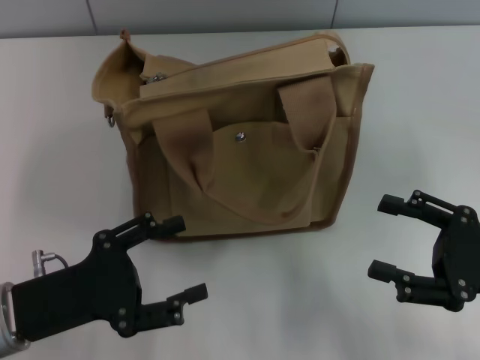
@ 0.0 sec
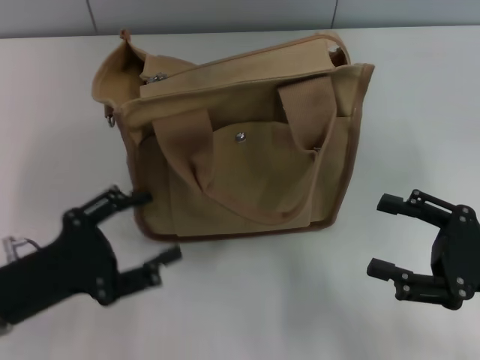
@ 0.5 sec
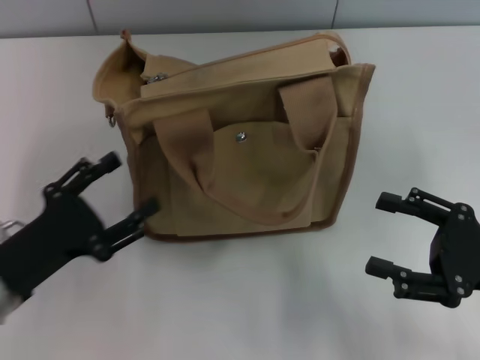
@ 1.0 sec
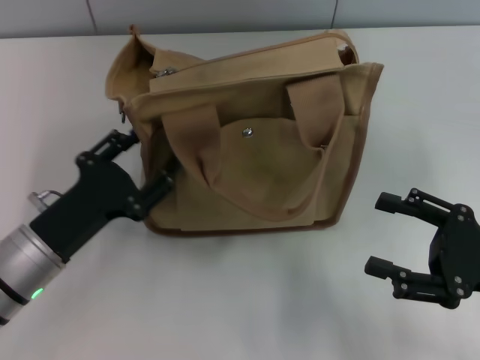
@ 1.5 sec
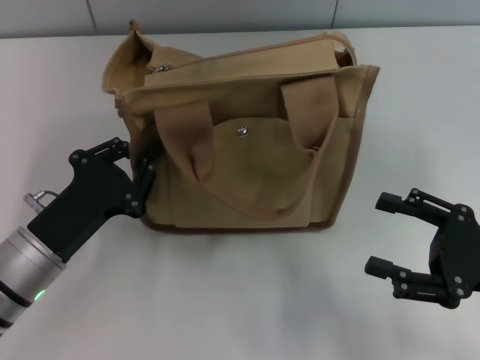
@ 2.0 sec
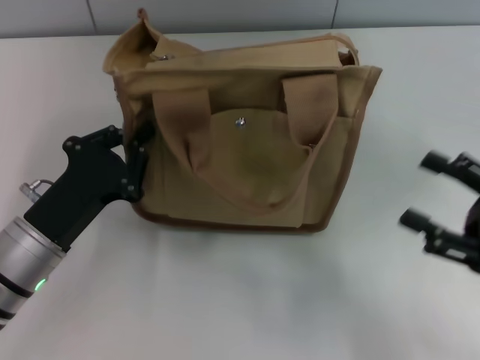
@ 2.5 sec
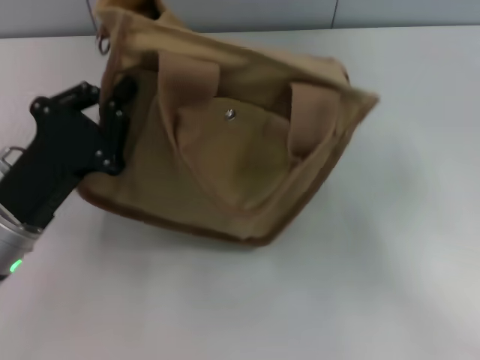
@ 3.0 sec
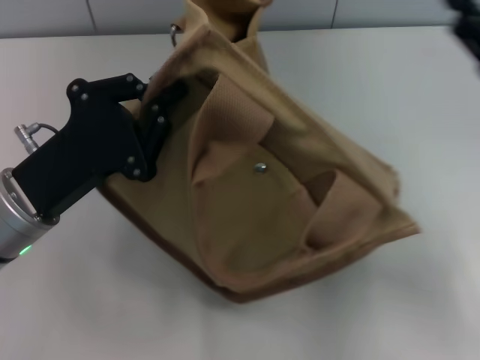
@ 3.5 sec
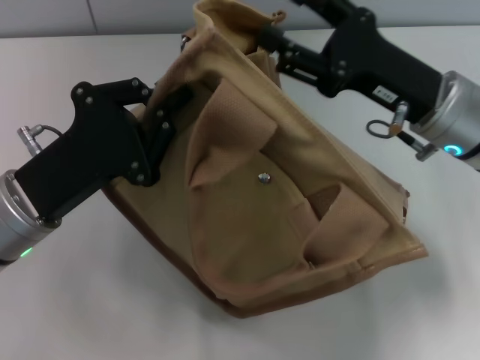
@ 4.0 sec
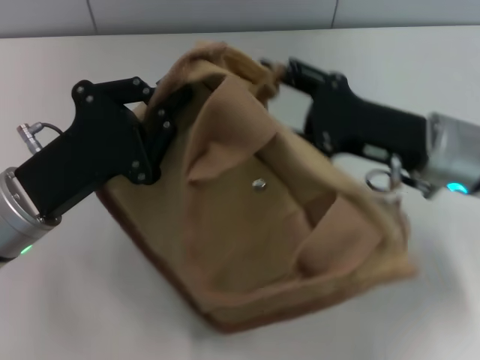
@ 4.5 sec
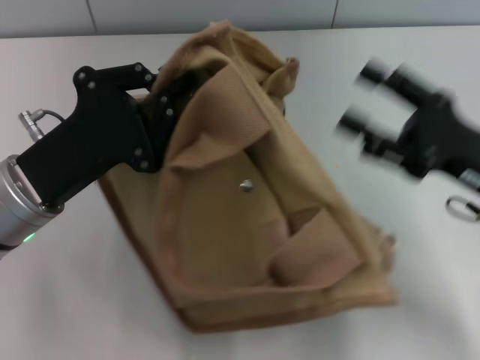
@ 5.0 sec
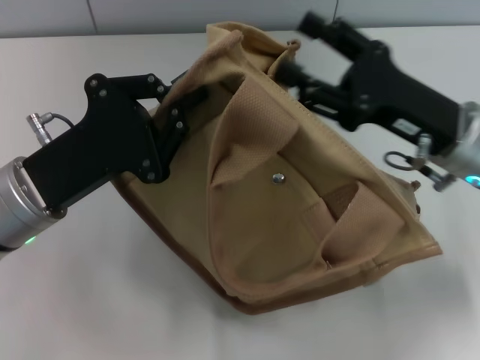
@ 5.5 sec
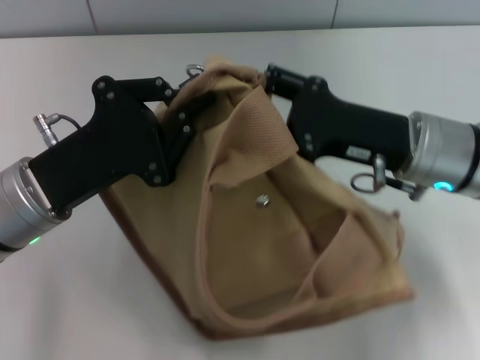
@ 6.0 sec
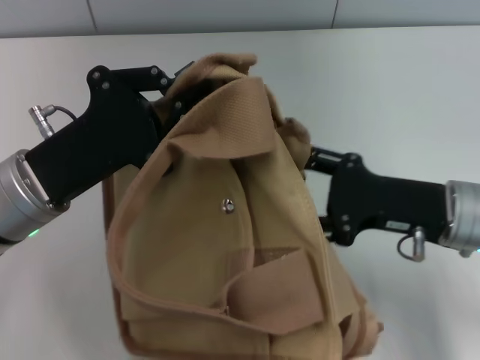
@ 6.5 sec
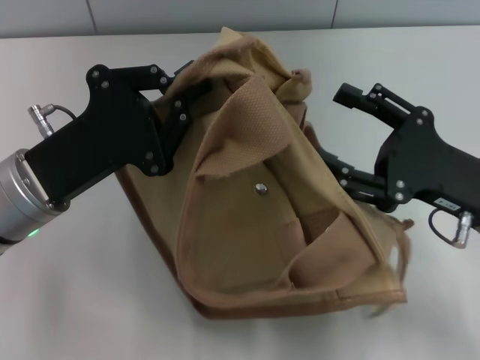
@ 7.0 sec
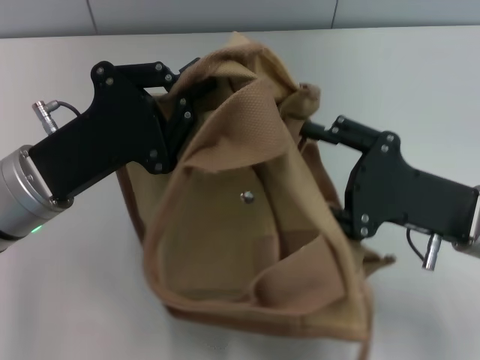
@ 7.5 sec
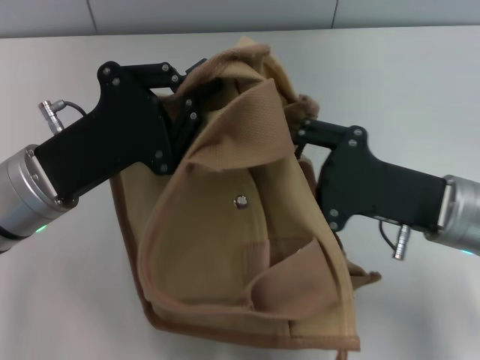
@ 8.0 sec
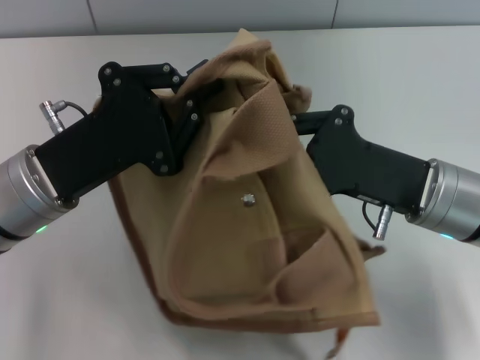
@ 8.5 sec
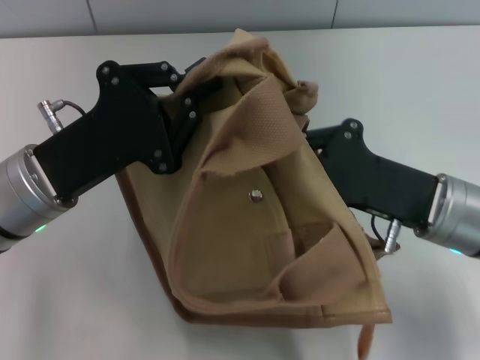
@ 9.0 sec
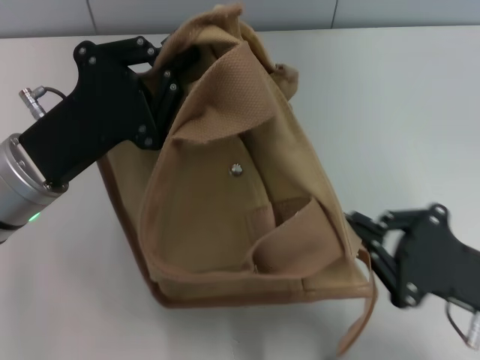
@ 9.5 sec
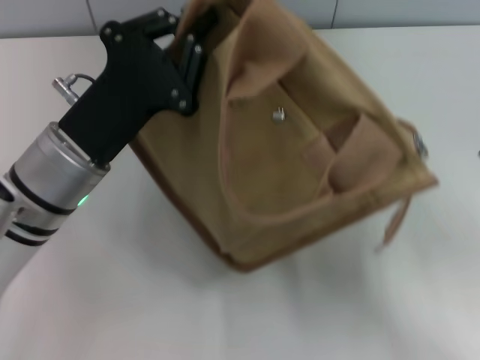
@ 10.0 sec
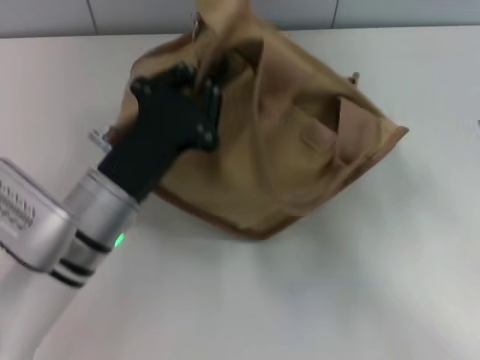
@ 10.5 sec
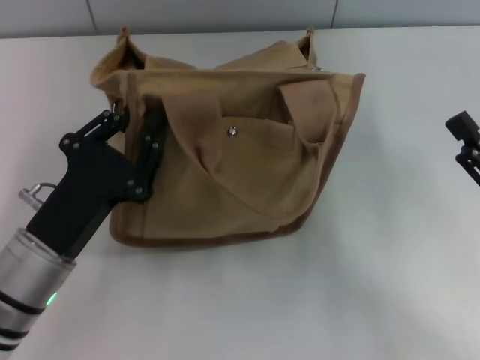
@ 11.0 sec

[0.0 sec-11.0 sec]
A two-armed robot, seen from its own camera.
Step, 0.0 sec to 9.5 sec: Pull open the zipper with your right hand.
0.0 sec to 2.0 sec: The left gripper shifts by approximately 5 cm, and closes up.
2.0 sec to 3.5 sec: The right gripper shifts some 10 cm forward and upward, while the left gripper is displaced upward by about 5 cm.
3.5 sec to 5.5 sec: The right gripper goes left and right, approximately 10 cm each way, reversing 2 times.
5.5 sec to 7.5 sec: The right gripper shifts approximately 5 cm backward.
7.5 sec to 9.0 sec: The right gripper closes up.
9.0 sec to 11.0 sec: The right gripper goes approximately 10 cm to the right and backward, and opens its fingers; the left gripper goes roughly 10 cm downward and backward.

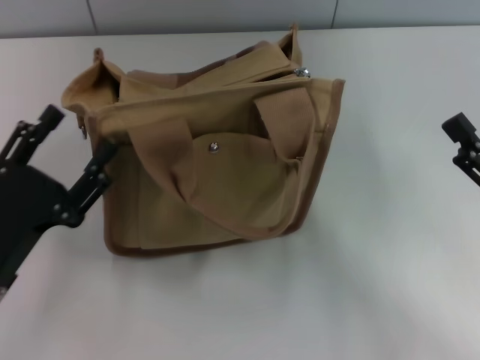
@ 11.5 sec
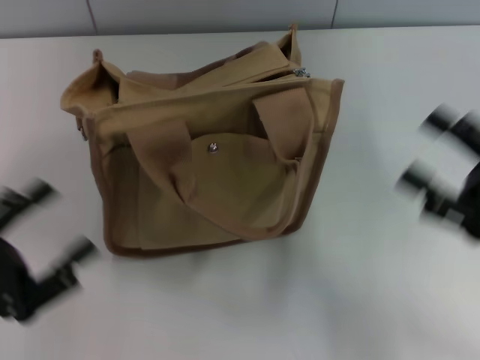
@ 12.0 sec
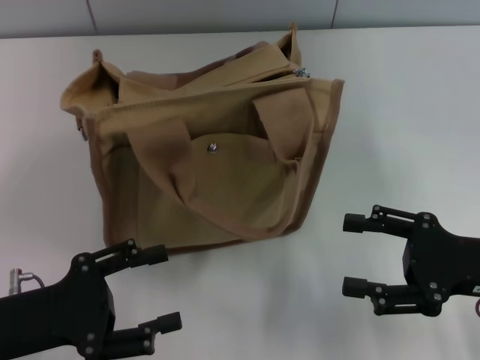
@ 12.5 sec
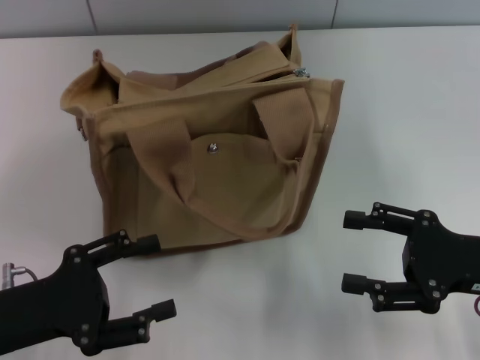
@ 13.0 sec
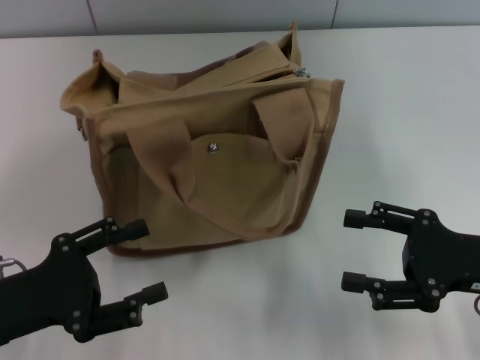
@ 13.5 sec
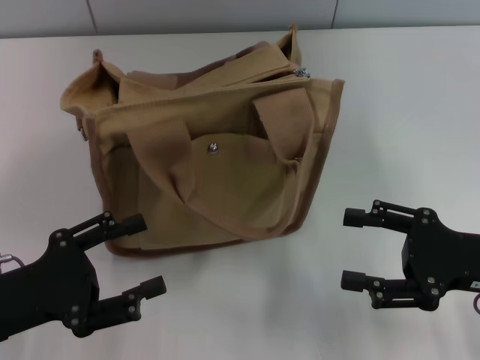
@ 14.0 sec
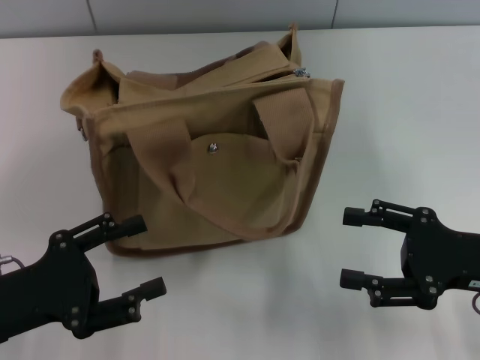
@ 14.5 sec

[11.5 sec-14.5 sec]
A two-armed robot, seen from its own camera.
13.0 sec to 14.5 sec: The two grippers keep their place.

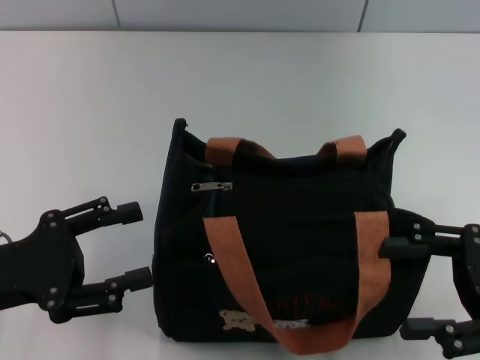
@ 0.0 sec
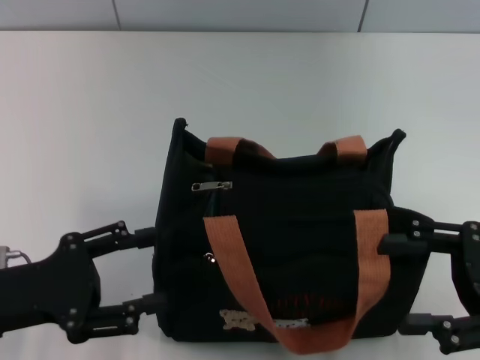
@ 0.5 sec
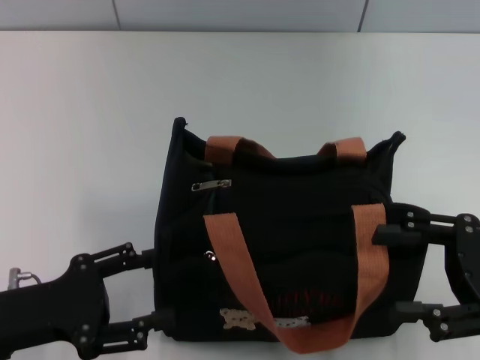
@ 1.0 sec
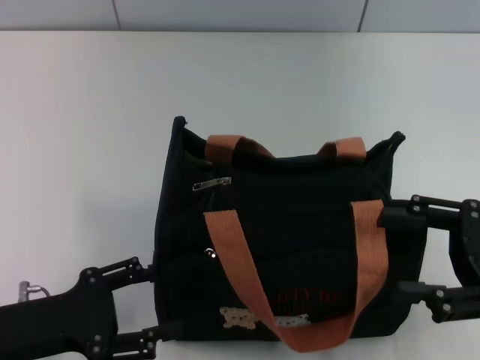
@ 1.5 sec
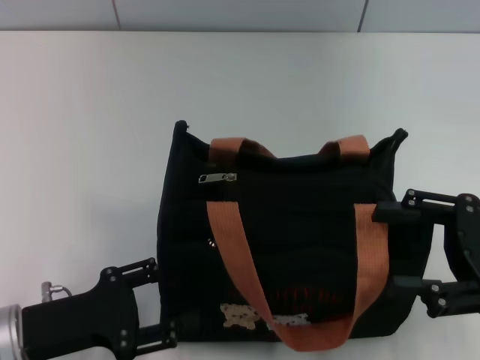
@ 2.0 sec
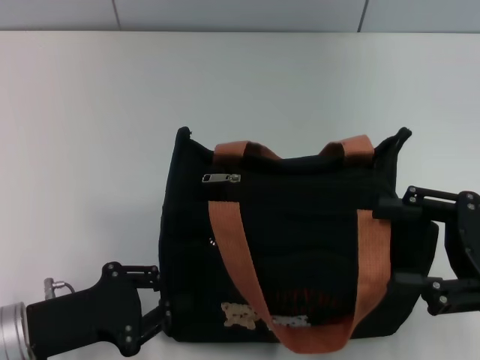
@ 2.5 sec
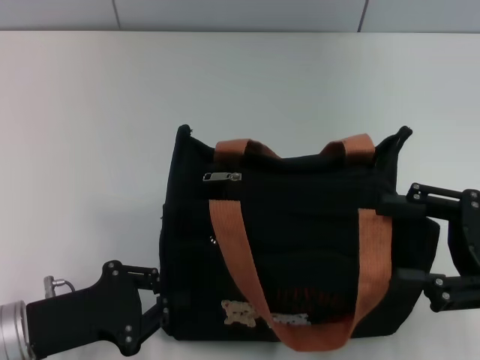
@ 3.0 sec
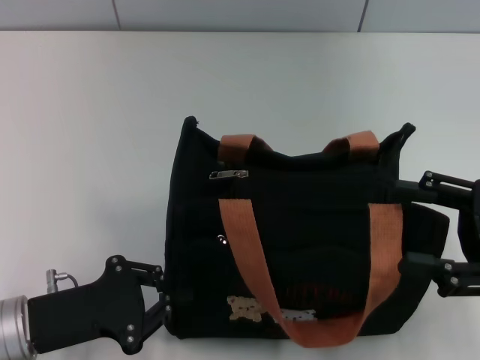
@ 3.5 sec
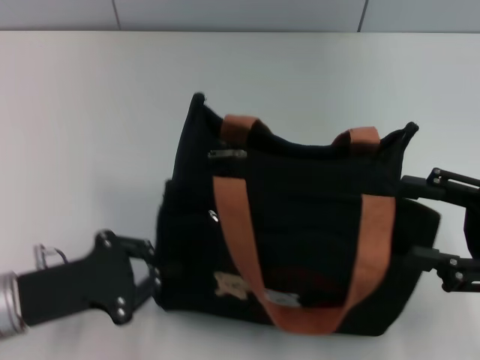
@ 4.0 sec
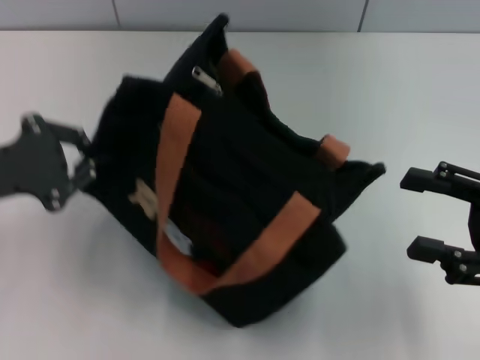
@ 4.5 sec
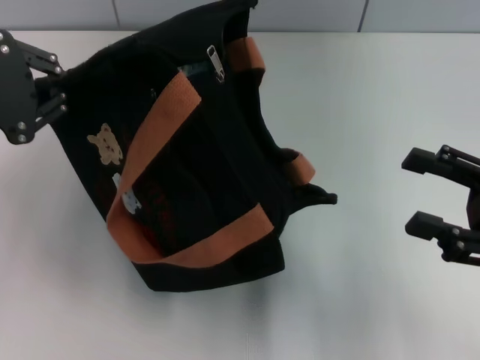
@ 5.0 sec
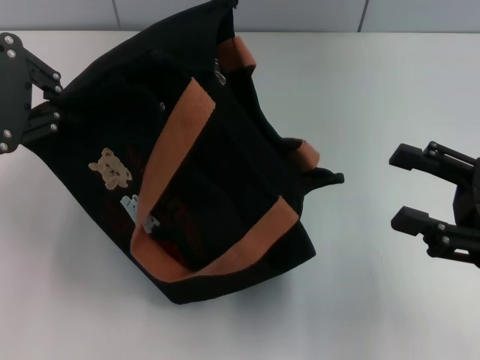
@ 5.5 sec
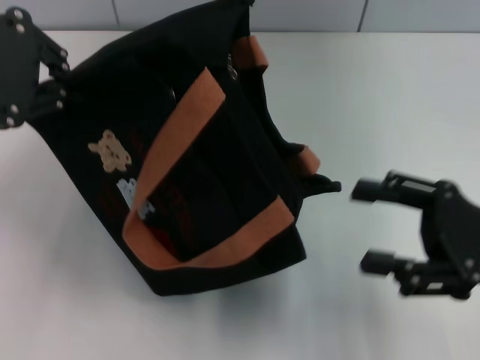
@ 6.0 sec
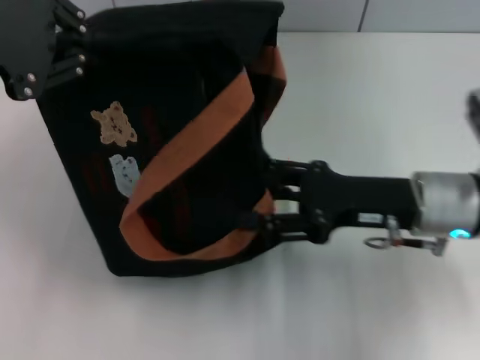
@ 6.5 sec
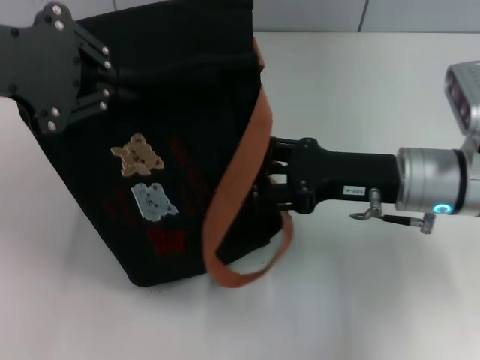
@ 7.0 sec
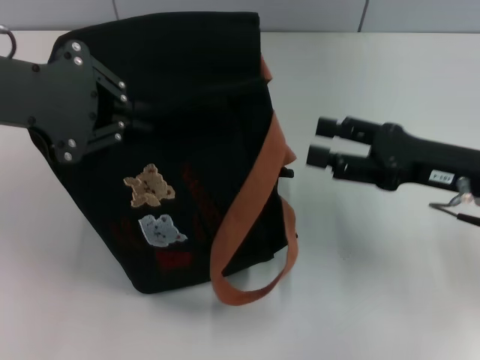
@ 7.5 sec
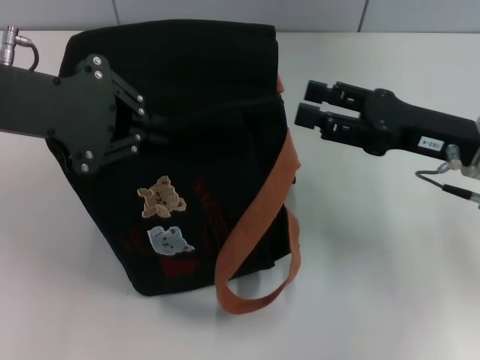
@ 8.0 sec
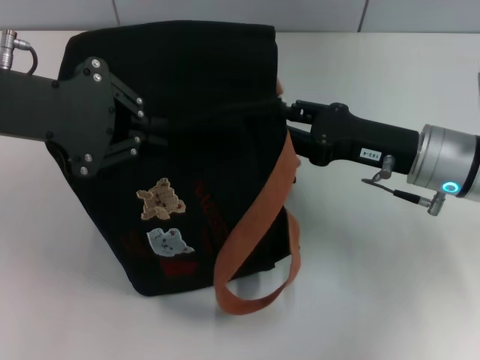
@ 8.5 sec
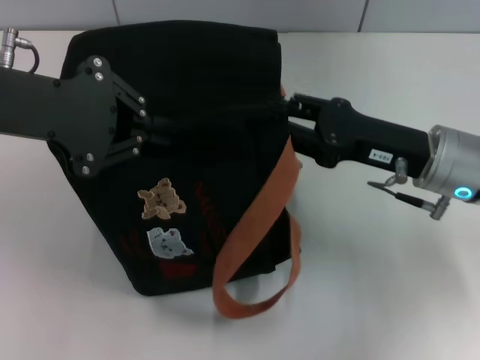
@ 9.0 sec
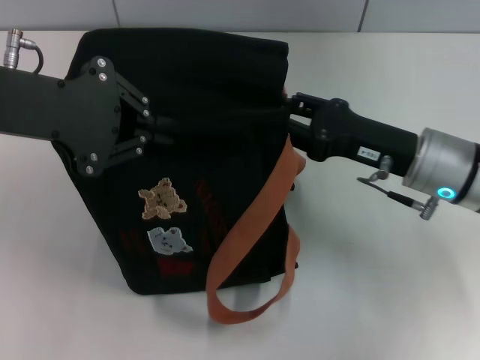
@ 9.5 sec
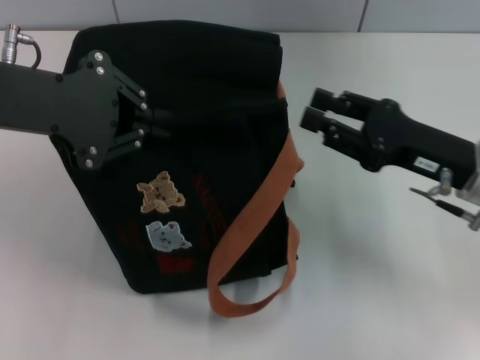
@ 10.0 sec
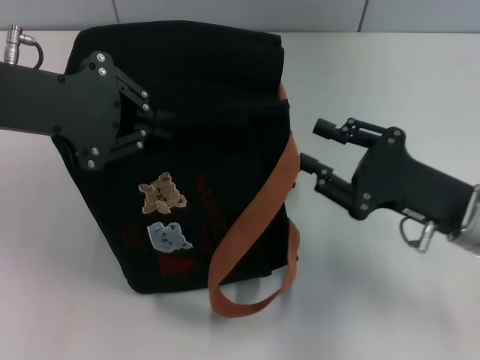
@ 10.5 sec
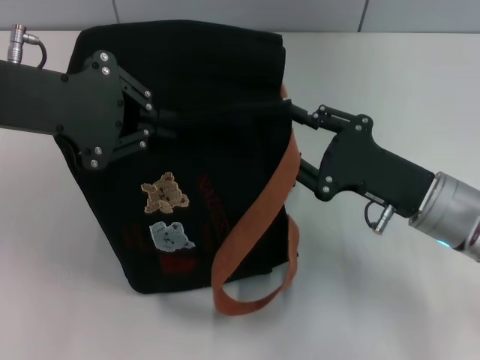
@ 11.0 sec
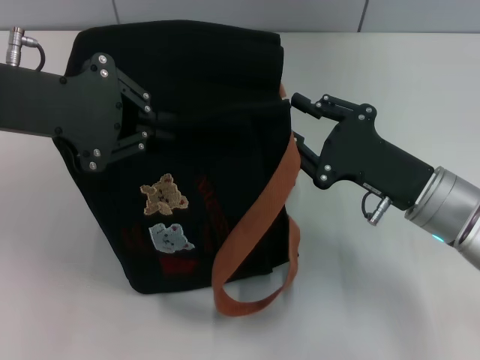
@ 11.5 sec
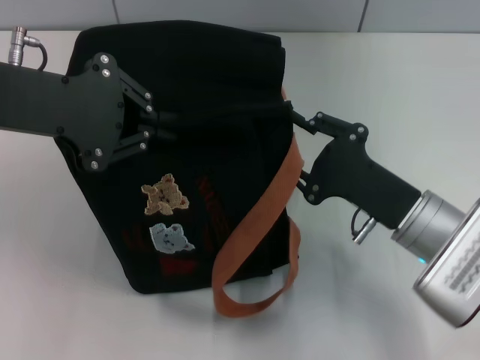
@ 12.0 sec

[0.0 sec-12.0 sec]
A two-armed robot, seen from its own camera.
0.0 sec to 2.0 sec: The left gripper travels downward by roughly 5 cm.
2.0 sec to 4.0 sec: The left gripper closes up.
4.0 sec to 6.0 sec: The left gripper shifts approximately 25 cm upward and forward.
6.0 sec to 8.0 sec: The left gripper moves some 5 cm. The right gripper is displaced forward by roughly 10 cm.
8.0 sec to 10.0 sec: The right gripper closes up.
10.0 sec to 12.0 sec: The right gripper travels to the left by some 5 cm.
